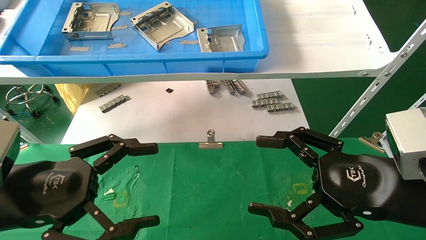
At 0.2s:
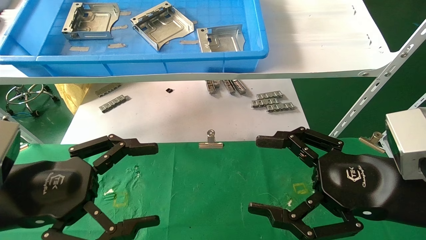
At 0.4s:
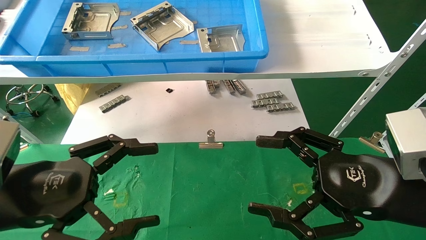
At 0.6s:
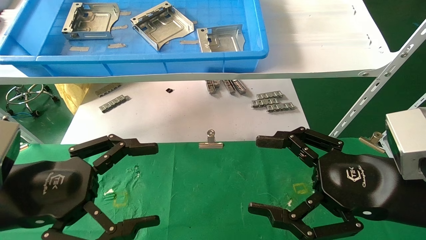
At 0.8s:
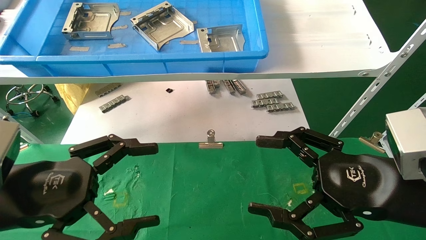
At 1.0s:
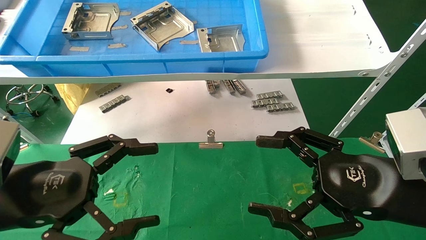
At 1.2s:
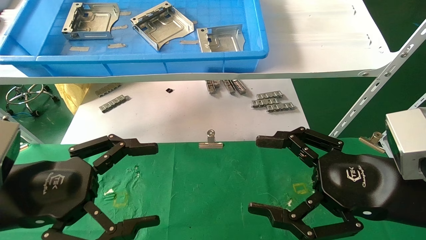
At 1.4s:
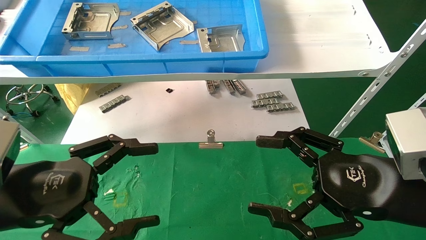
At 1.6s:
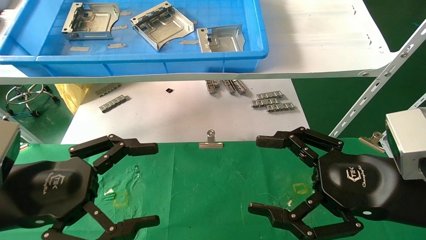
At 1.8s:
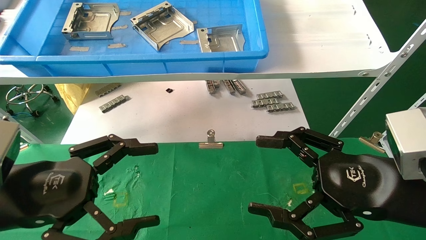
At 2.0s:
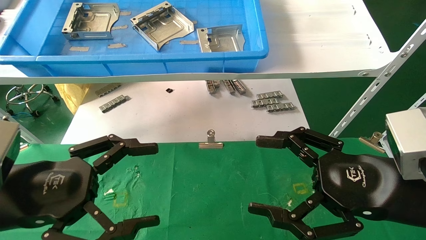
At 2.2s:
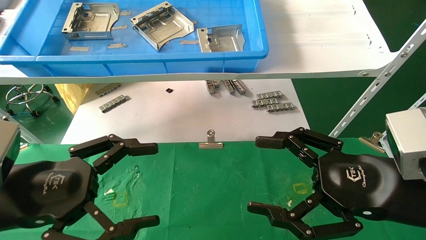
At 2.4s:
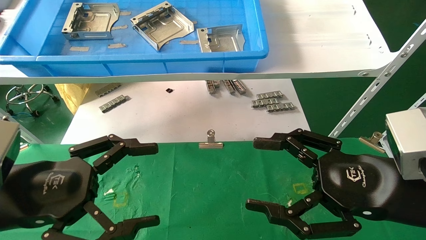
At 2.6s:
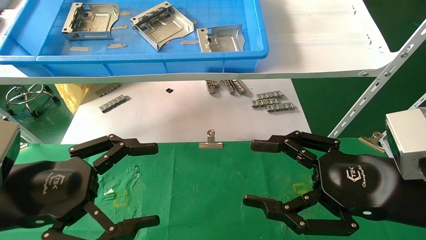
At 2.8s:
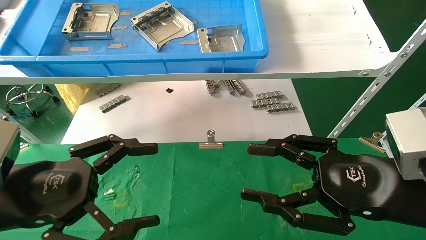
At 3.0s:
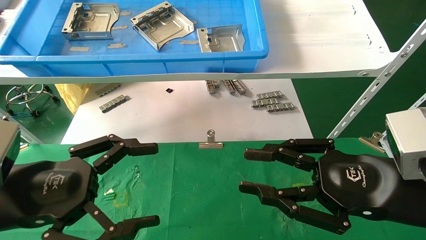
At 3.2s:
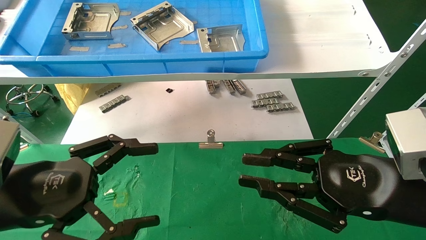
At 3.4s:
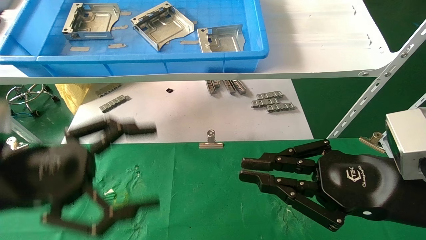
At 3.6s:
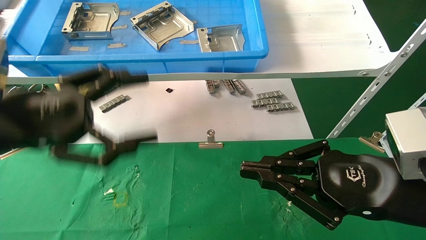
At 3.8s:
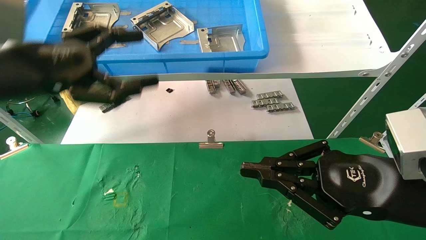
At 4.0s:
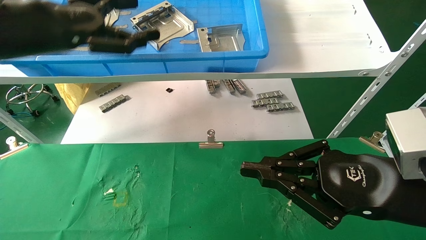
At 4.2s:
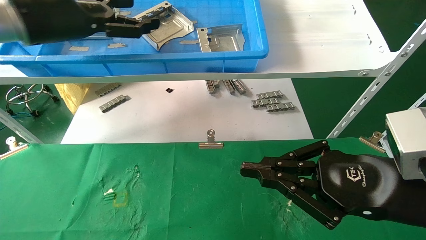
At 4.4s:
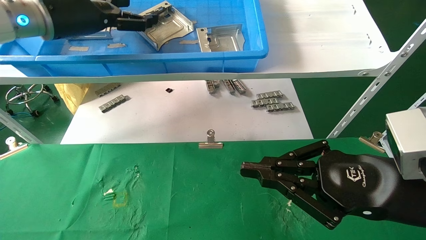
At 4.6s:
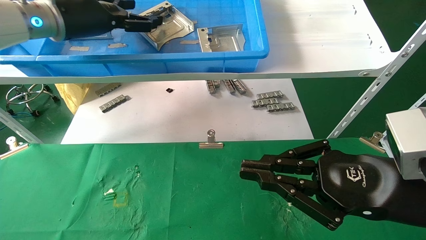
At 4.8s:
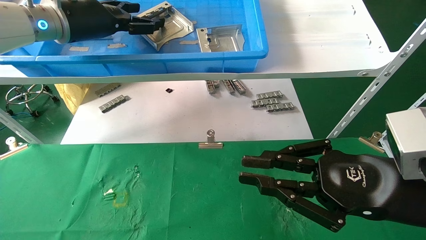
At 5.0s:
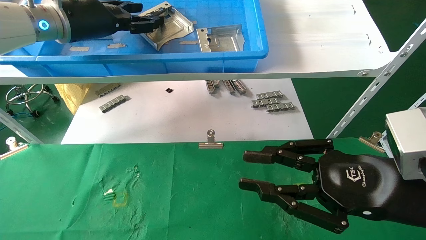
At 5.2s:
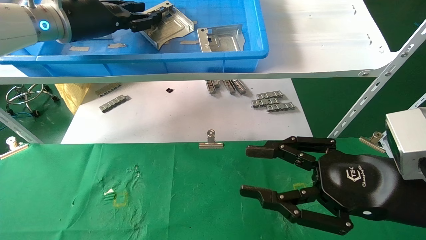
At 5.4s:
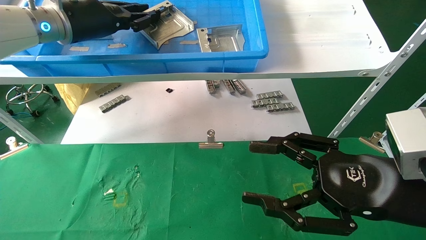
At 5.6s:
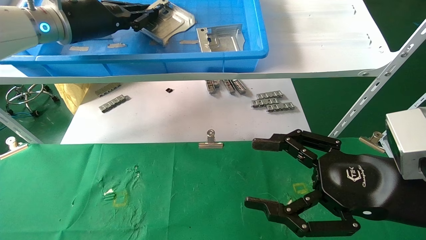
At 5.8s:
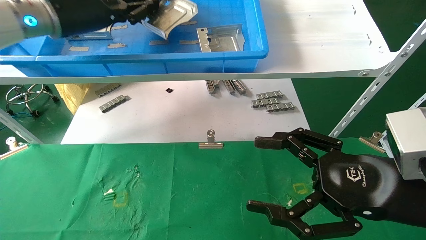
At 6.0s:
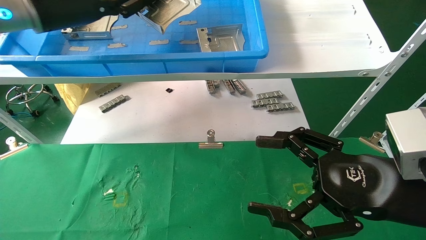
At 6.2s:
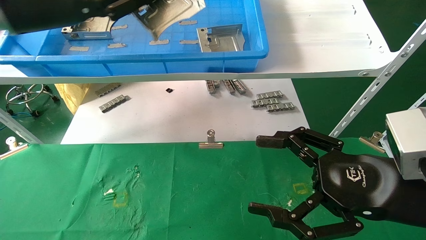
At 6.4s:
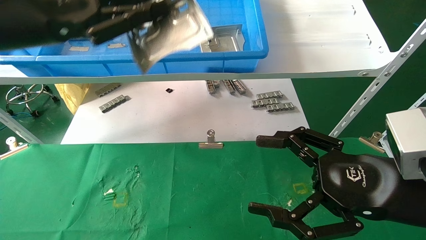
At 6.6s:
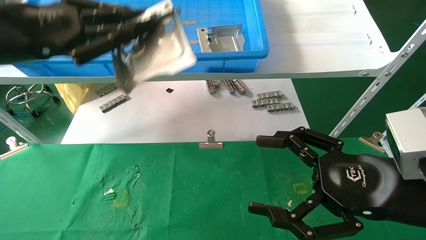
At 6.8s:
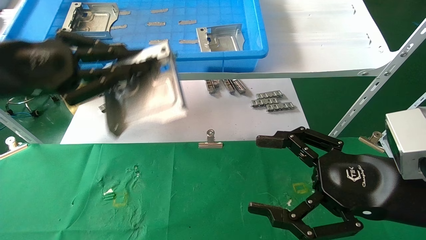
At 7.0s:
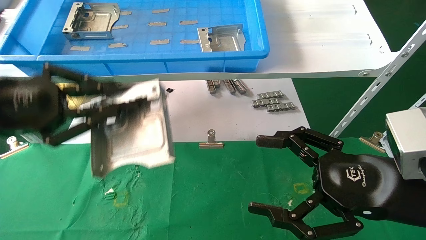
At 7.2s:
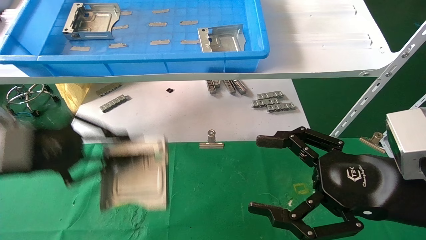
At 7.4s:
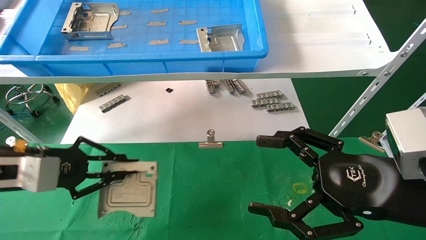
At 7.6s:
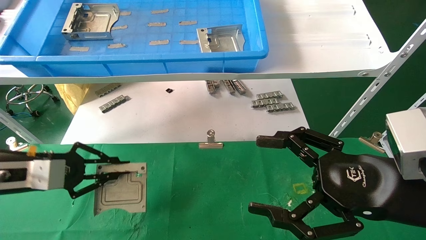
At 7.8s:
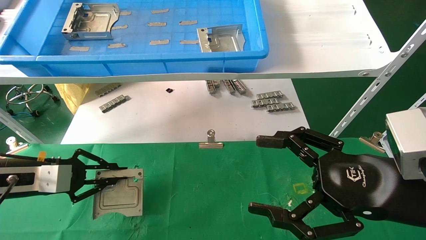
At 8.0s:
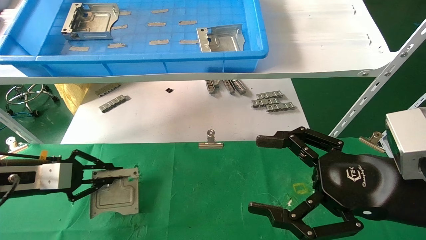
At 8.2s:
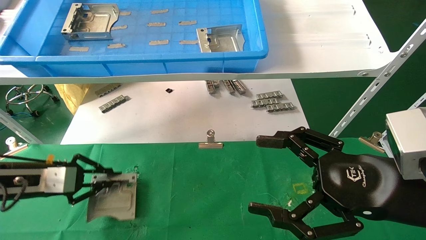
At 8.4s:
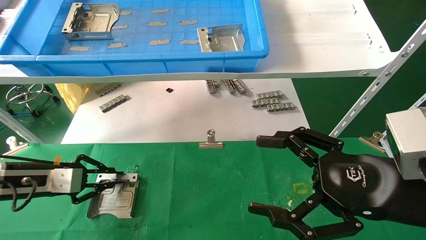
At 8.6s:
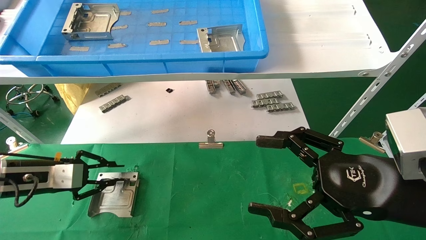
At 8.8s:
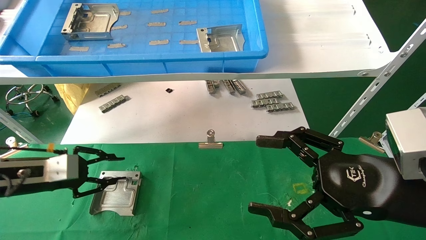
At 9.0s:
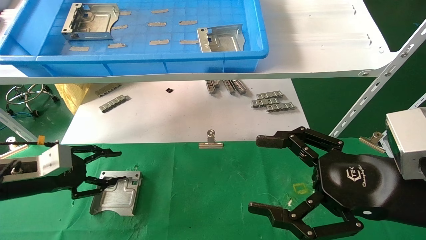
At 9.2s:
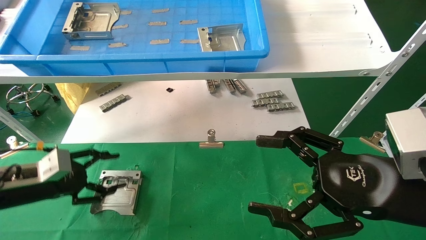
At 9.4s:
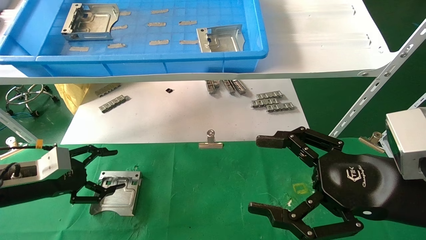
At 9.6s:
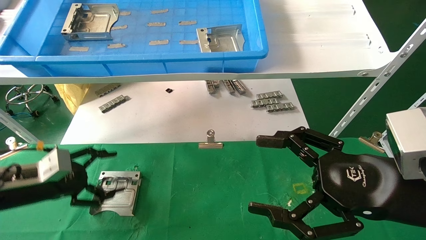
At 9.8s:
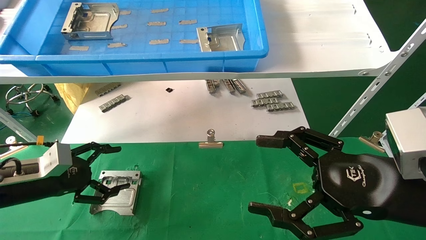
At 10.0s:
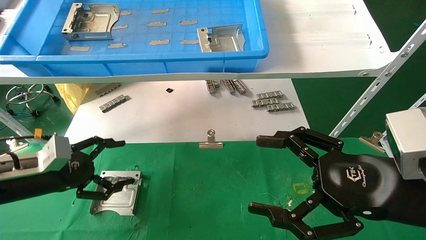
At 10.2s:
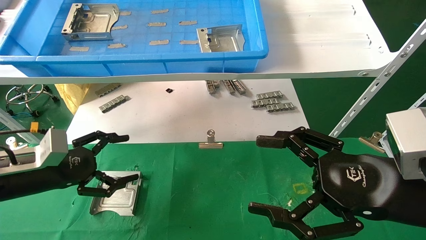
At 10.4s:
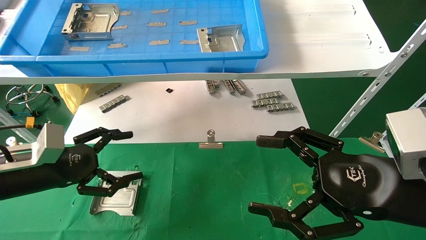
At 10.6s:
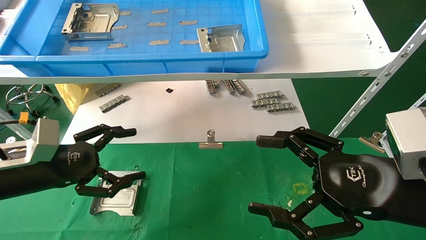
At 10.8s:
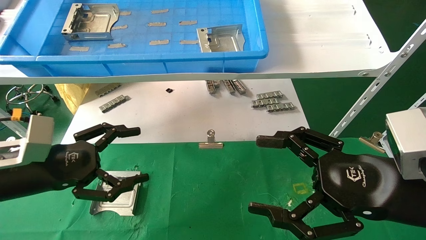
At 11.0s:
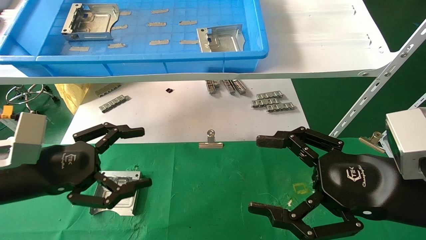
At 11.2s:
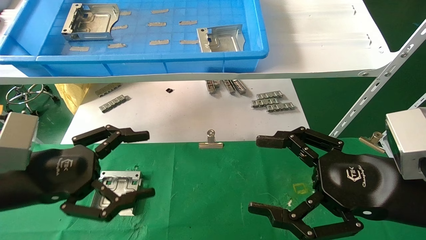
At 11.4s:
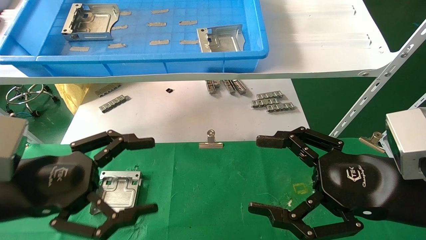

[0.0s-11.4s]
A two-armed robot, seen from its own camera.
Task of the whole recording: use the mechanical arm to pick up the parts and place them on the table.
Step, 3.6s to 5.6s: Pick up the hard drive bracket from the feeding area.
Step, 5.8s to 8.6s: Place the hard drive bracket into the box.
0.0s to 2.8s: Neither gripper changes place.
2.8s to 4.2s: The left gripper shifts approximately 25 cm upward and forward. Meanwhile the right gripper closes.
4.2s to 5.6s: The left gripper ends up approximately 5 cm from where it was, and closes up; the right gripper opens.
5.6s to 7.2s: The left gripper goes about 25 cm downward, backward and to the left.
7.2s to 8.6s: The left gripper travels downward, forward and to the left by approximately 15 cm.
8.6s to 10.0s: The left gripper opens.
10.0s to 11.4s: The left gripper heads backward, to the right and upward, covering about 15 cm.

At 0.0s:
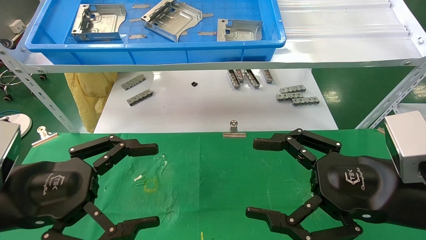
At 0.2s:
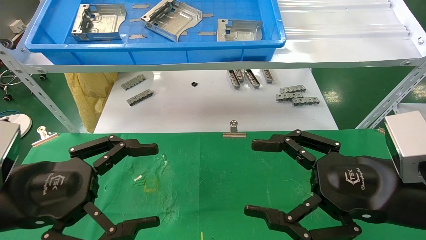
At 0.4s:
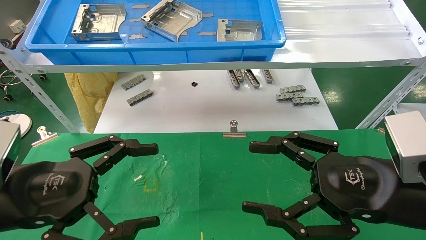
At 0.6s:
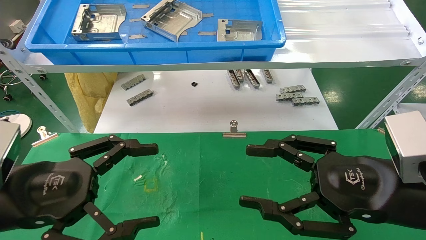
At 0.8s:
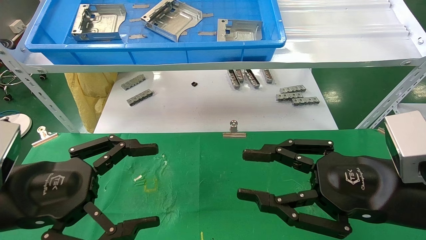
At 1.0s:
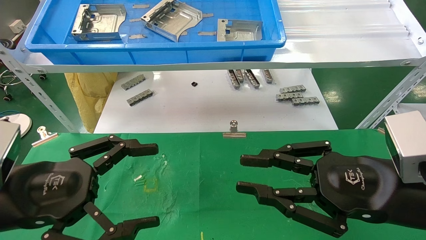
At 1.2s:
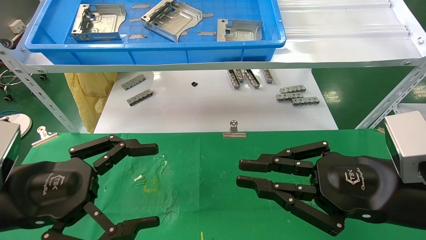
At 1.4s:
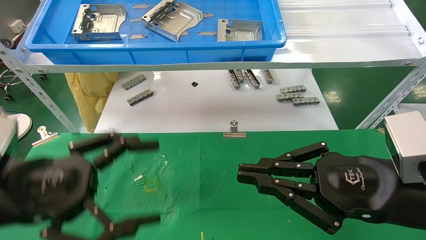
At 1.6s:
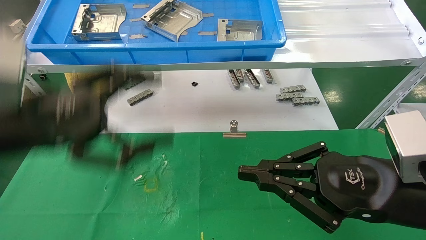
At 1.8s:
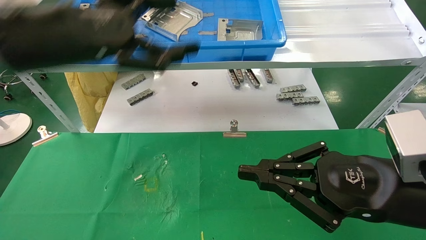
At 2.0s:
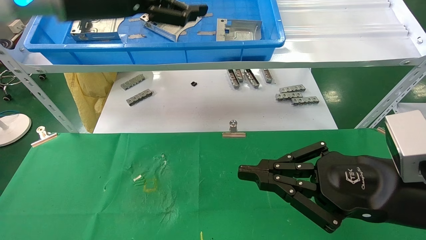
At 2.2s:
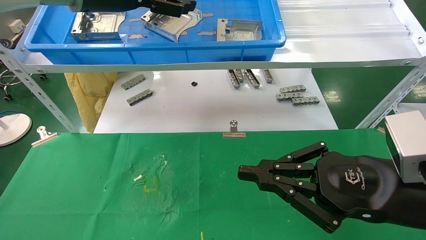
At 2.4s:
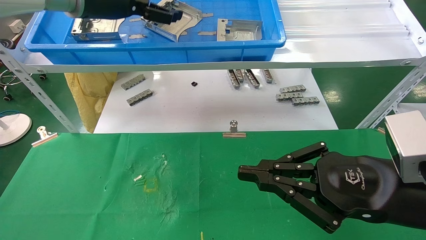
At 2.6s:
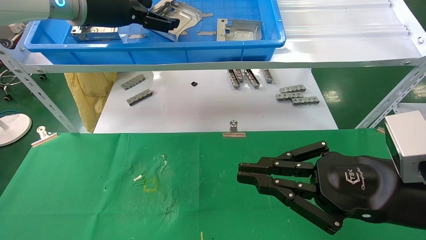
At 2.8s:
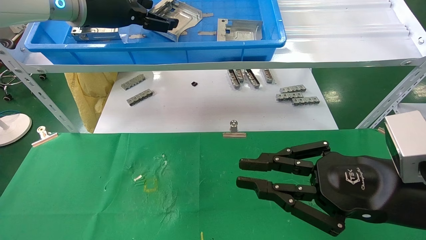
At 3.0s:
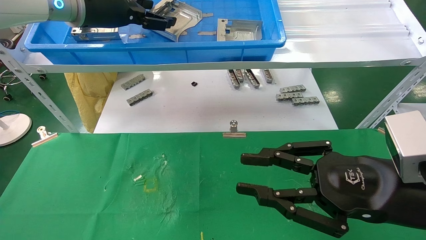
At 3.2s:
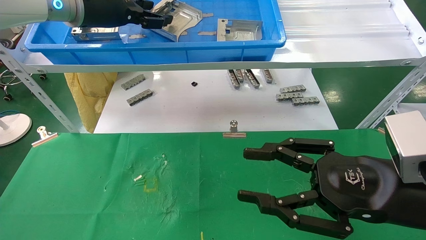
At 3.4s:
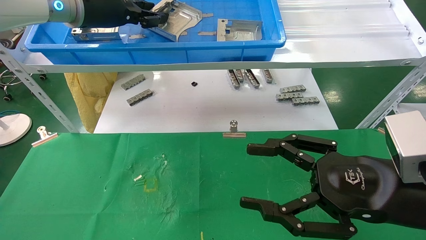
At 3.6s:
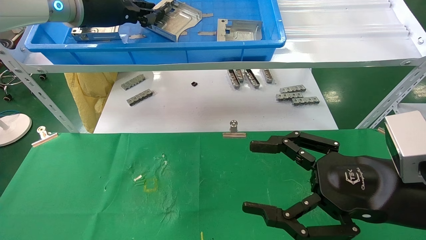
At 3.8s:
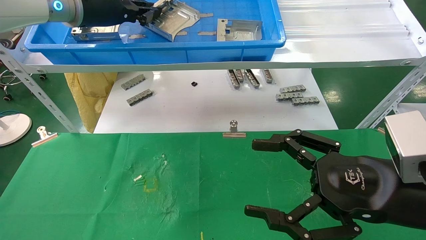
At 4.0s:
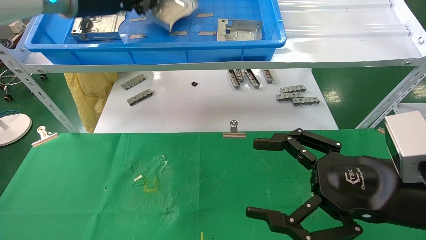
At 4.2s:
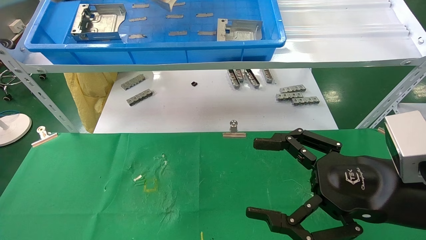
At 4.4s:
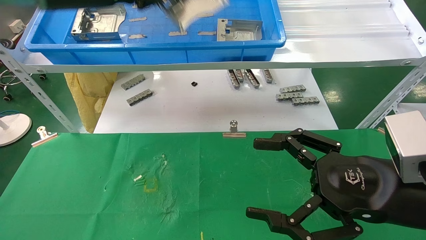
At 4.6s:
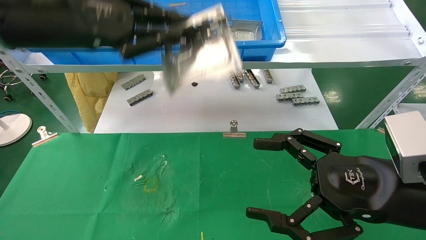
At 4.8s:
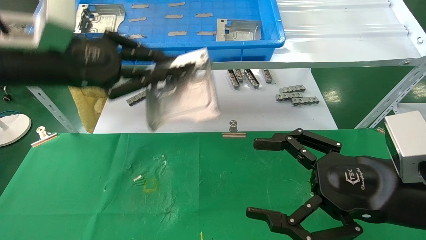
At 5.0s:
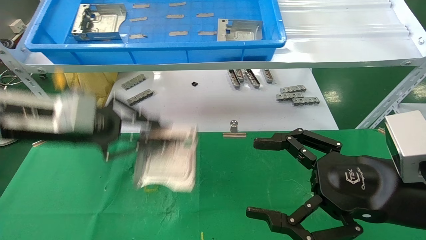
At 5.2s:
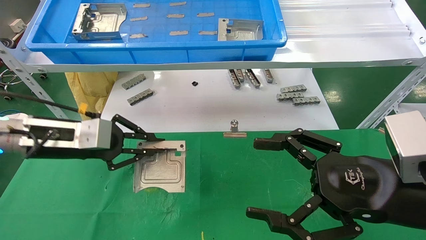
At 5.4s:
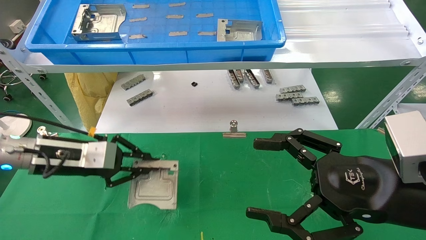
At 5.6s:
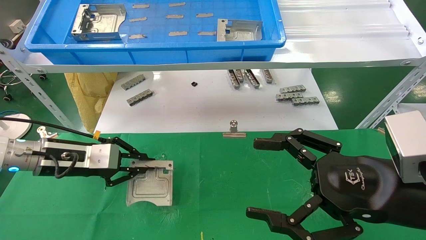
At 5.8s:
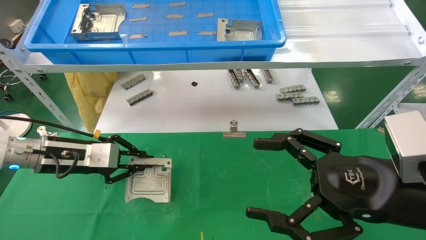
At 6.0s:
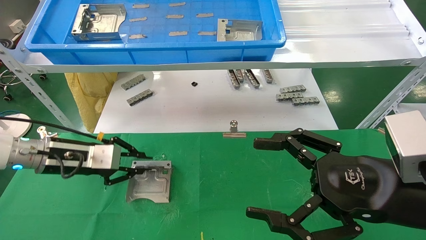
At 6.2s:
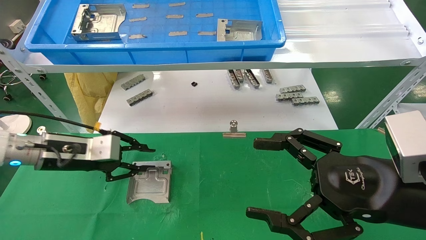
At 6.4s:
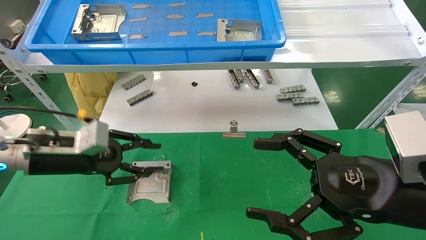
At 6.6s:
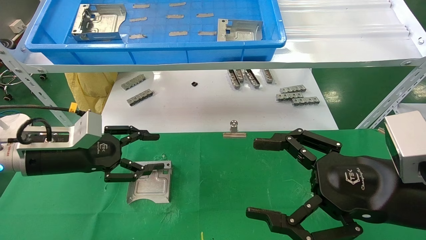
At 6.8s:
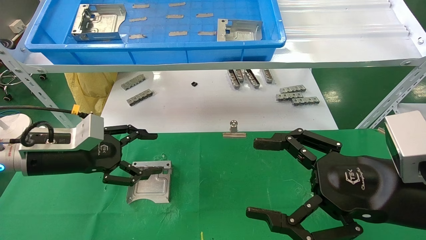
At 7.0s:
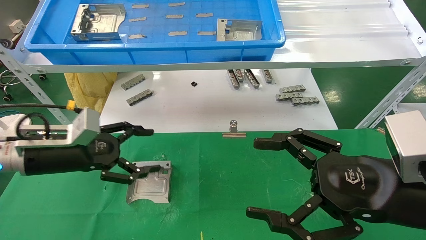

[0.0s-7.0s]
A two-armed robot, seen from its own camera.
Task of the whole recording: use the mechanical arm to pick up the parts and place them on the table.
Step, 1.0s to 4.2s: Pick up the hard drive bracket from the feeding area.
0.0s to 1.4s: The right gripper closes its fingers.
1.4s to 2.8s: The left gripper moves forward and upward, about 30 cm.
2.8s to 4.2s: The left gripper closes its fingers, while the right gripper opens its fingers.
4.2s to 5.6s: The left gripper travels downward by some 30 cm.
5.6s to 7.0s: The left gripper opens up.
